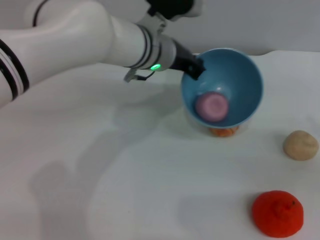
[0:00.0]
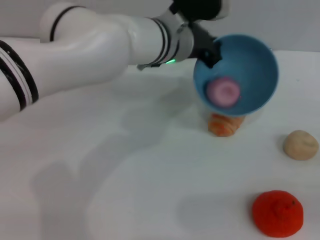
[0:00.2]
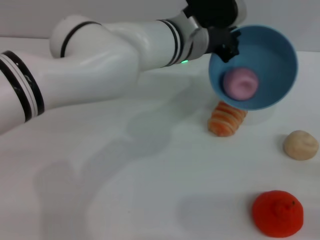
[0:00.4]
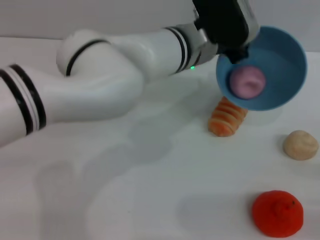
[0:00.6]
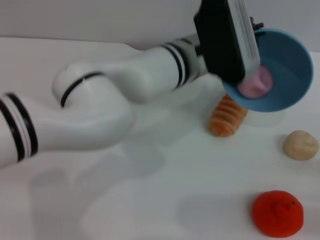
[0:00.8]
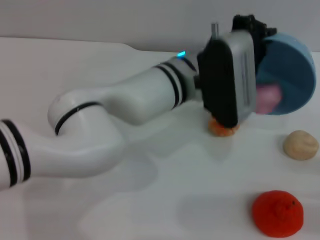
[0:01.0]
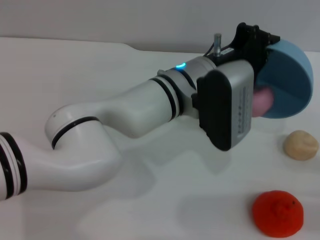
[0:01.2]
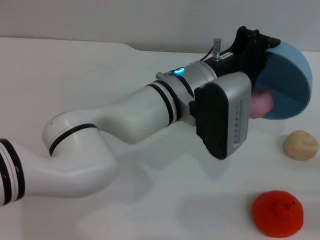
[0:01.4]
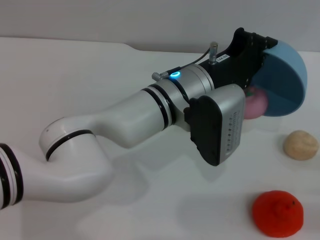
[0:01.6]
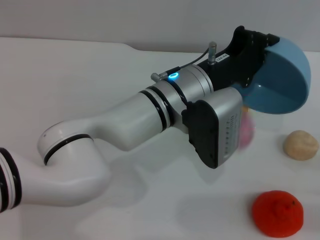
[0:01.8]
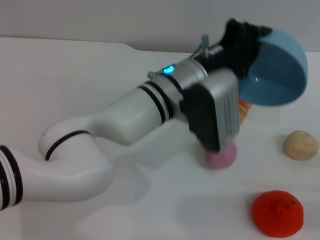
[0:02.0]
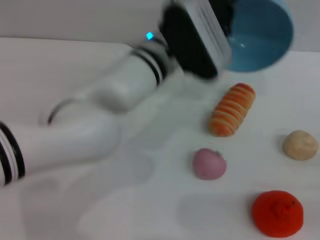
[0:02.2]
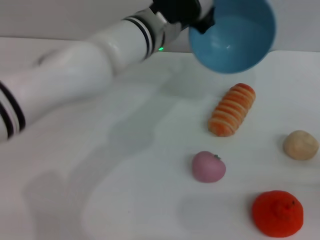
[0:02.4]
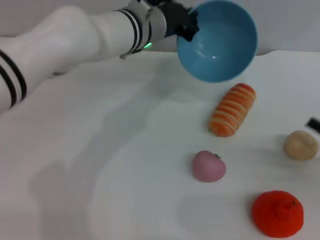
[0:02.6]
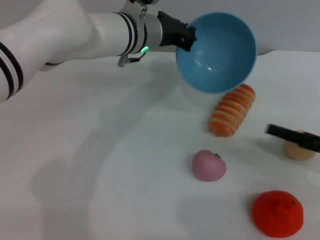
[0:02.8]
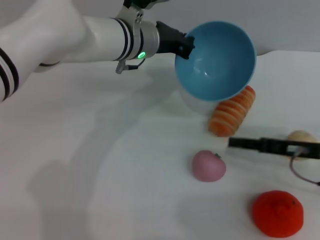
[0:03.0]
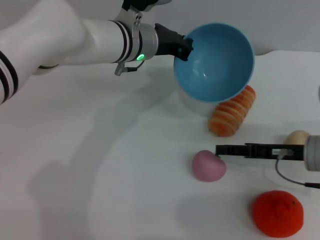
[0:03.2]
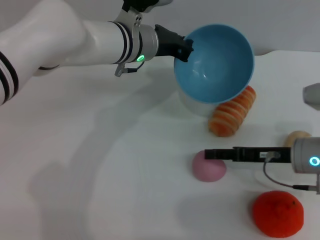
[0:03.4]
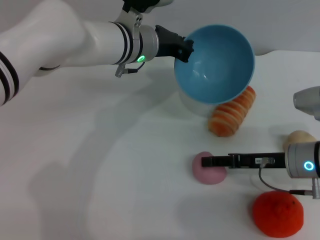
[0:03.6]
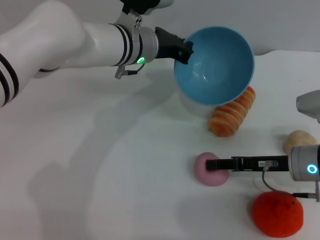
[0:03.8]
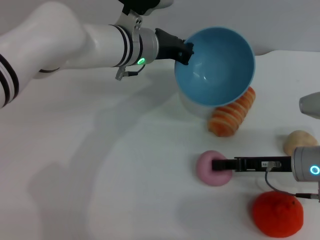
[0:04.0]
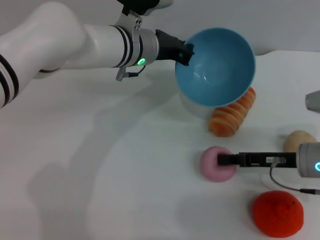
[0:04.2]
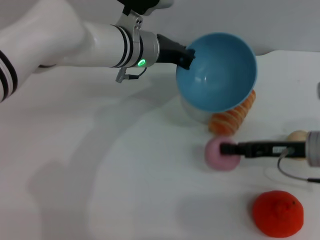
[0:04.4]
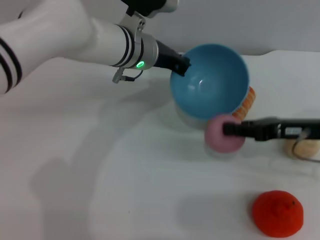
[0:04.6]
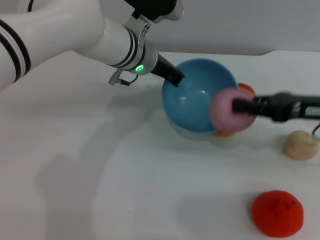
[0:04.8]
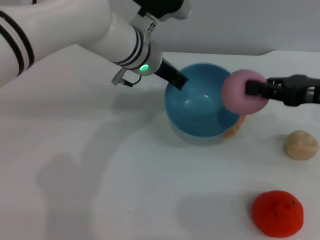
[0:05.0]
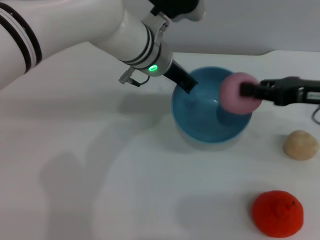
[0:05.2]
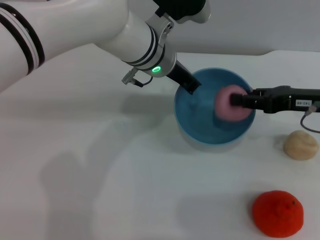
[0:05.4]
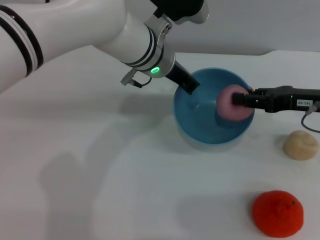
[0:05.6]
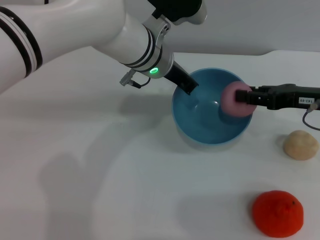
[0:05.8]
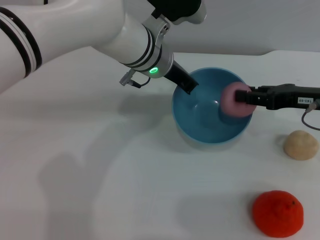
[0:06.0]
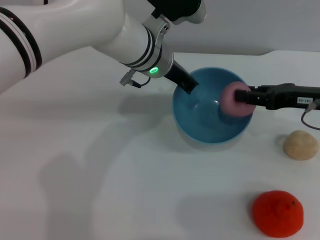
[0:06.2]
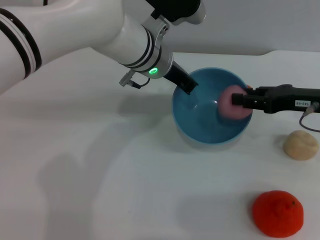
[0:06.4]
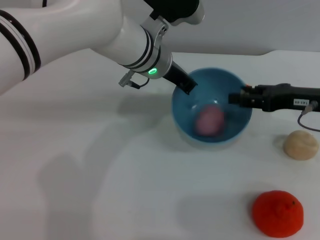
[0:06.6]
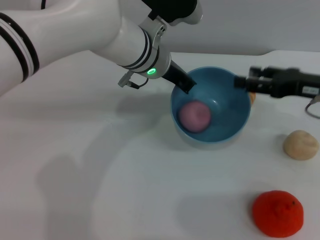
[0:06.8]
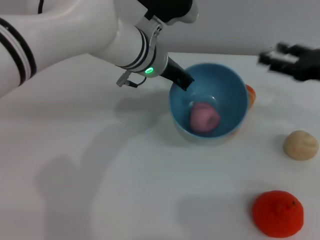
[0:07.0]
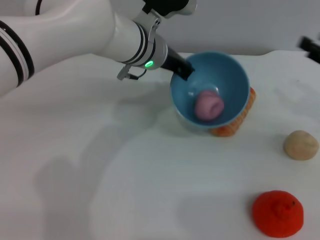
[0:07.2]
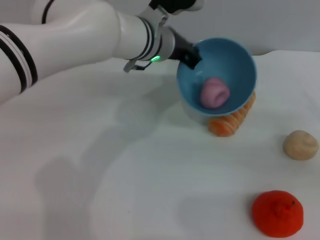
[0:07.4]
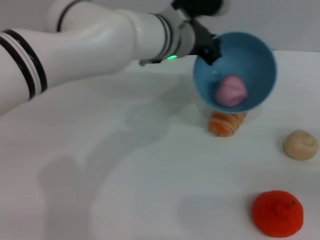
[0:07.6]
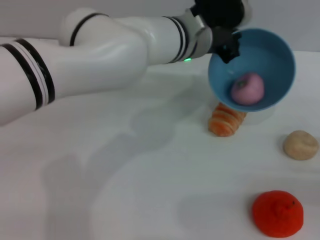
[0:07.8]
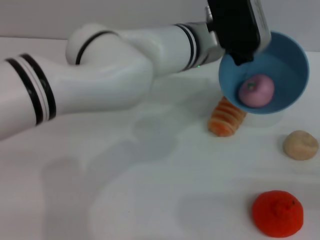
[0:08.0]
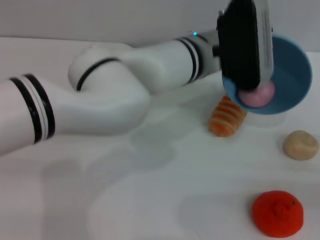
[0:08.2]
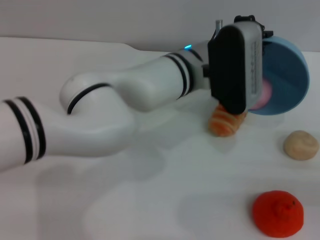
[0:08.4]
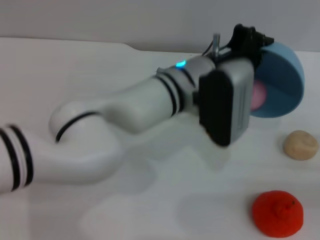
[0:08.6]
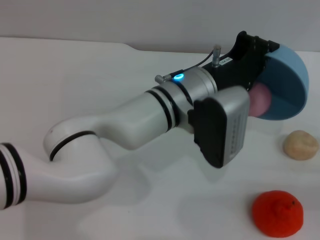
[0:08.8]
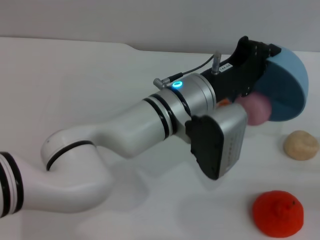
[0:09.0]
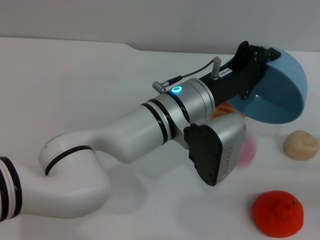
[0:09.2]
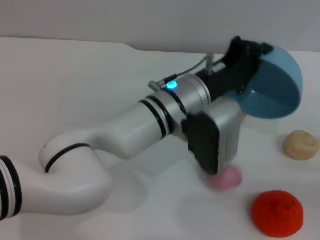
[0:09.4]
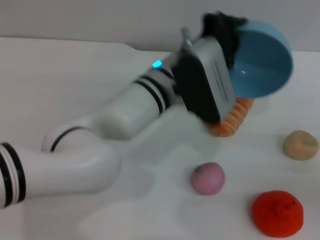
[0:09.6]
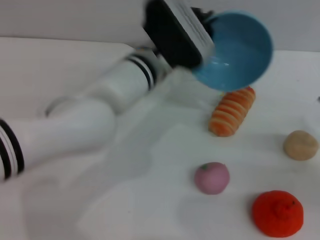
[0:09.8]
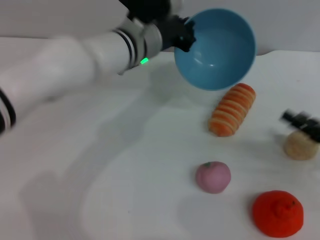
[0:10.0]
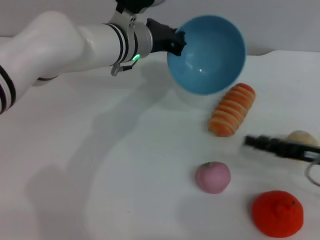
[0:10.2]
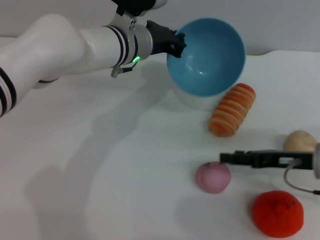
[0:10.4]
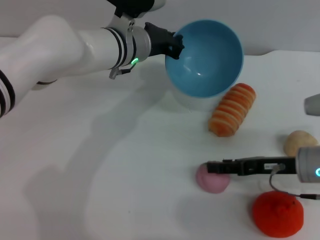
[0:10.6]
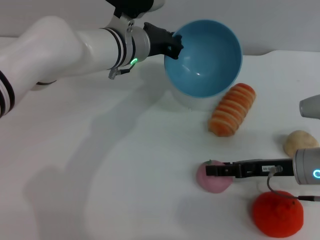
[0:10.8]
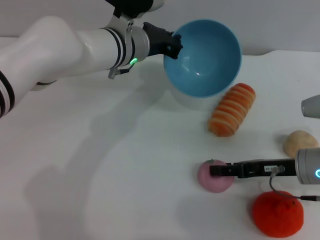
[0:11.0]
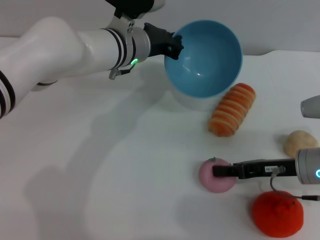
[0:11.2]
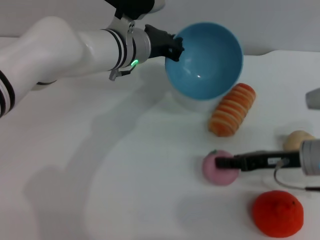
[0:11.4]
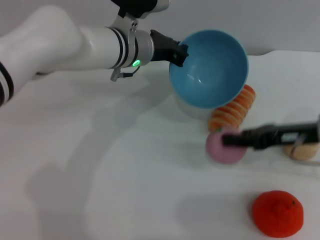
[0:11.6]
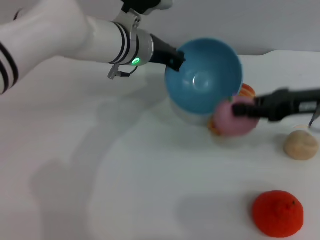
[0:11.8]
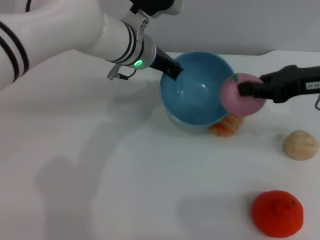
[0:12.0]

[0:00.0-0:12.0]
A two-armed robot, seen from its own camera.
Task of the whole recording: put the peach into the blue bowl and pour it out repeatedly.
Step, 0:00.0 to 0:02.2: Pour the peach out of bowl.
Step, 0:02.4 to 0:04.6: Pick up the peach with the right gripper.
Step, 0:04.8 to 0:07.0: Place the peach into the bowl.
Step, 0:07.2 to 0:09.4: Pour the peach out of bowl.
Step, 0:09.6 to 0:11.6: Pick up the peach with the right gripper.
0:00.0 to 0:01.6: The right gripper heads backward and downward, covering some 10 cm; the left gripper is displaced backward by some 10 cm.
0:01.6 to 0:03.0: The left gripper heads forward and to the left, covering some 10 cm. Meanwhile the right gripper goes about 15 cm to the left and forward.
0:03.0 to 0:04.4: The right gripper closes up.
0:04.4 to 0:06.0: The right gripper moves upward, approximately 5 cm.
0:06.0 to 0:07.6: The right gripper goes about 15 cm to the right, backward and downward, and opens.
0:07.6 to 0:09.0: The left gripper moves backward, approximately 10 cm.
0:09.0 to 0:10.4: The left gripper travels forward and to the left by about 15 cm; the right gripper is displaced to the left and forward by approximately 15 cm.
0:10.4 to 0:12.0: The right gripper moves upward and forward, roughly 15 cm, and closes.

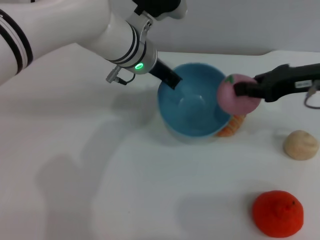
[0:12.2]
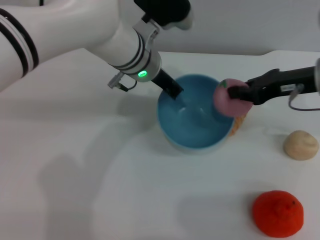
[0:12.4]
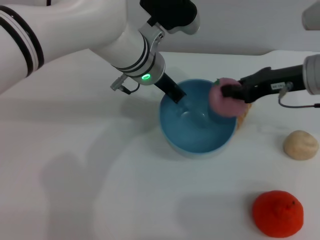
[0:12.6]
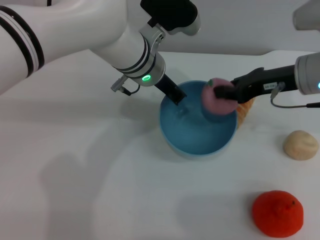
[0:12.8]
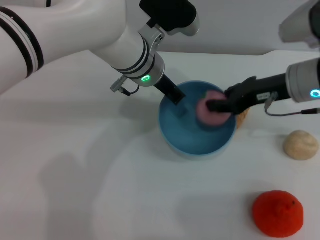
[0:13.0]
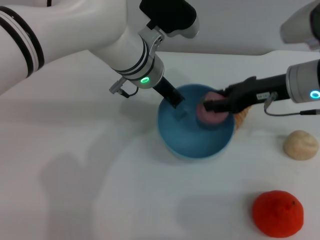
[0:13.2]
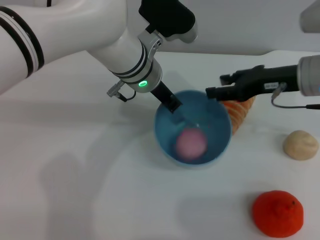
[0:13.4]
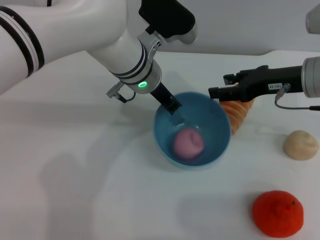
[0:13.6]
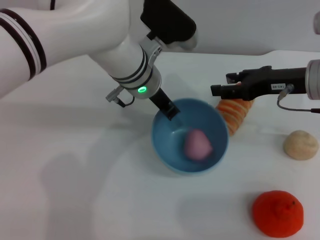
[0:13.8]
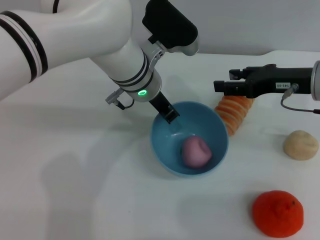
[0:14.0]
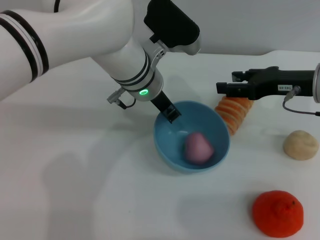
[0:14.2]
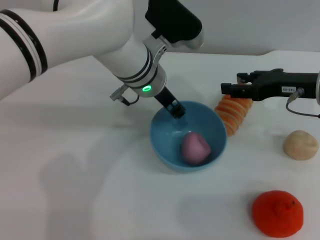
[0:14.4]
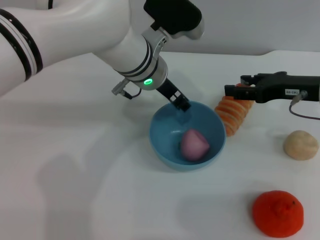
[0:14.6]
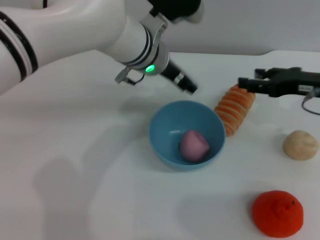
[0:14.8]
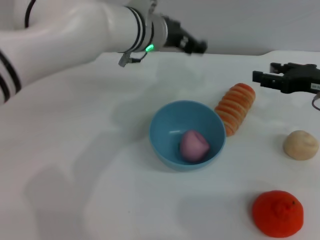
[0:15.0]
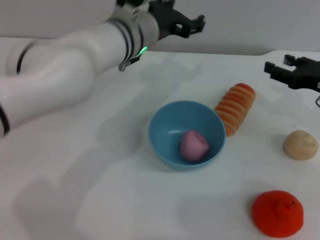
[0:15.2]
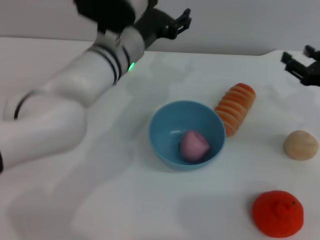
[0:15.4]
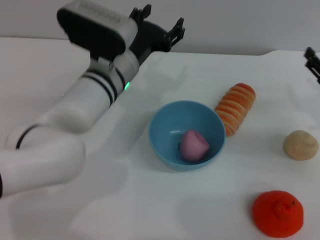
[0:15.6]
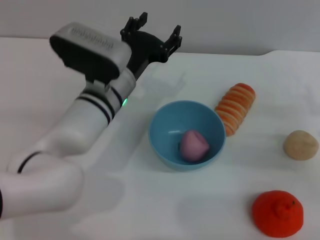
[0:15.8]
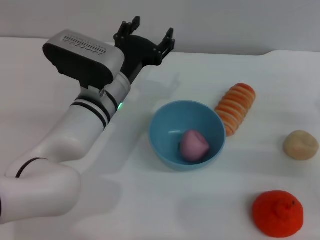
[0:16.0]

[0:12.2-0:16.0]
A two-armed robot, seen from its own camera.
Task of the whole recording: put the peach into the blue bowl and pour it out repeatedly.
Step, 0:12.2 to 0:13.4: Place the peach into the bowl.
Step, 0:13.6 to 0:14.6: Place the bowl on the table.
0:12.2 to 0:13.4: The right gripper opens up.
0:13.4 to 0:14.8: The left gripper opens up; the right gripper travels to the right by about 5 cm.
0:14.8 to 0:16.0: The right gripper heads downward, backward and to the right, covering approximately 15 cm. Meanwhile the left gripper moves downward, backward and to the left, approximately 10 cm, and opens.

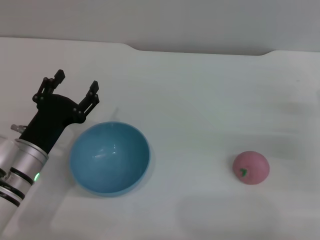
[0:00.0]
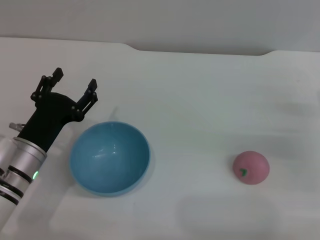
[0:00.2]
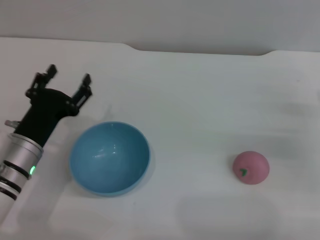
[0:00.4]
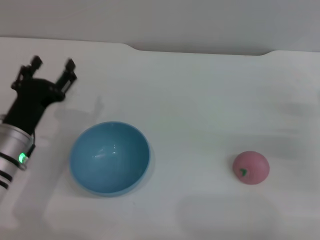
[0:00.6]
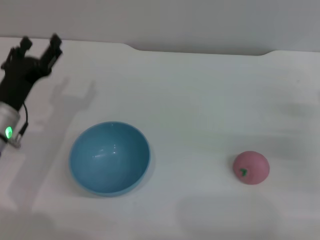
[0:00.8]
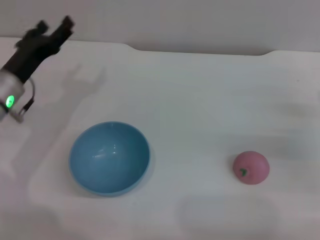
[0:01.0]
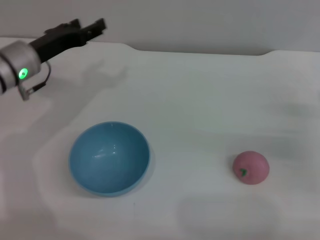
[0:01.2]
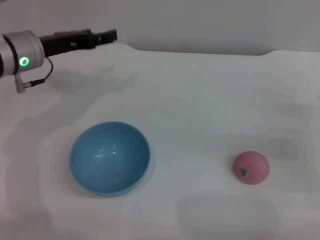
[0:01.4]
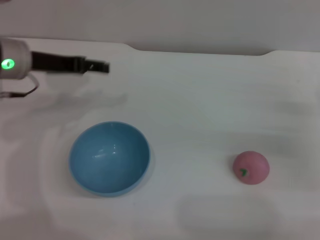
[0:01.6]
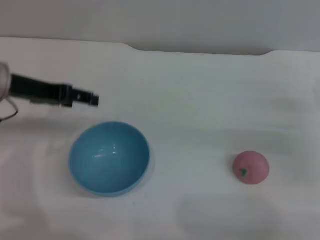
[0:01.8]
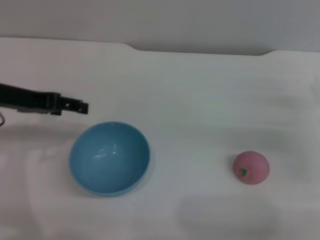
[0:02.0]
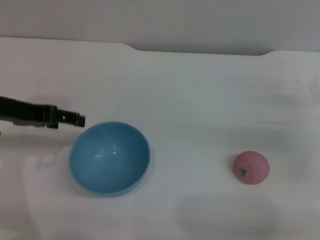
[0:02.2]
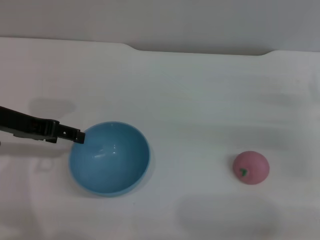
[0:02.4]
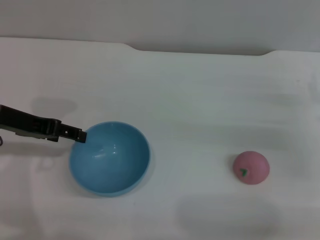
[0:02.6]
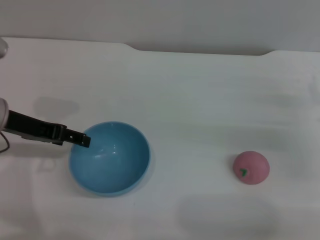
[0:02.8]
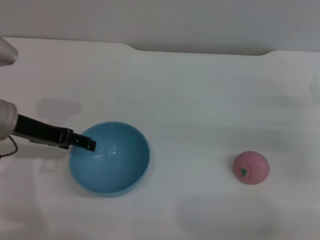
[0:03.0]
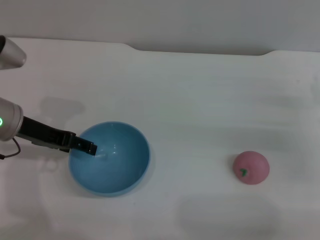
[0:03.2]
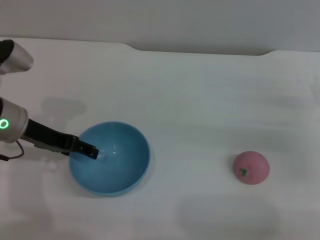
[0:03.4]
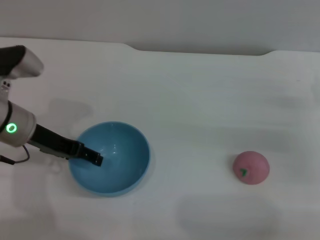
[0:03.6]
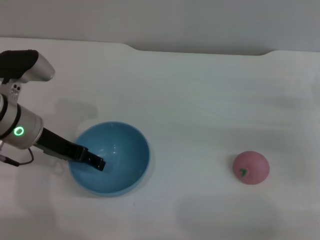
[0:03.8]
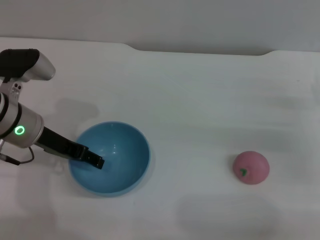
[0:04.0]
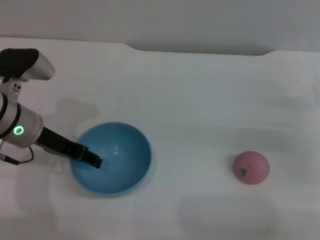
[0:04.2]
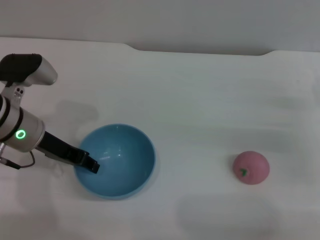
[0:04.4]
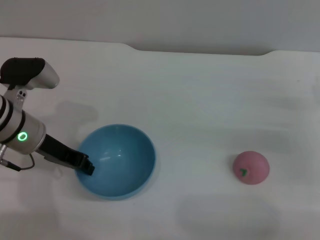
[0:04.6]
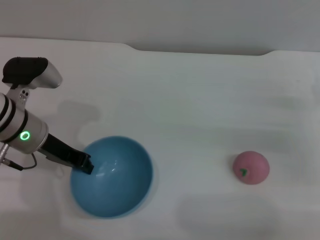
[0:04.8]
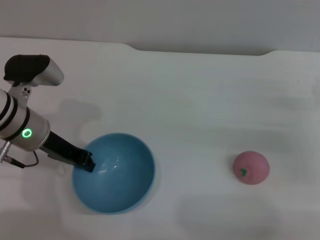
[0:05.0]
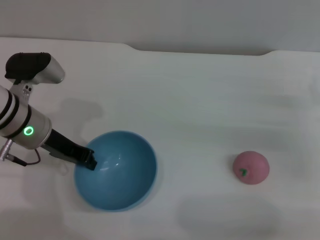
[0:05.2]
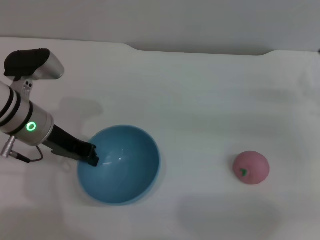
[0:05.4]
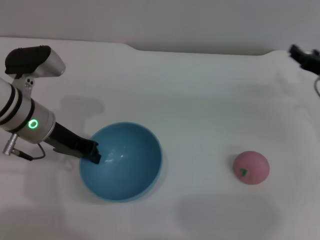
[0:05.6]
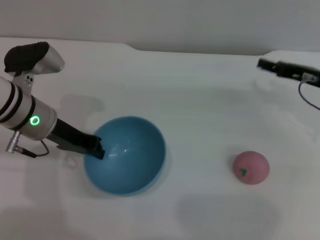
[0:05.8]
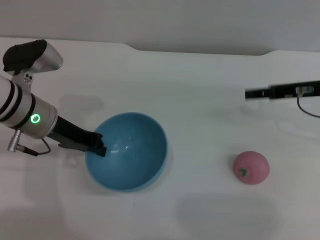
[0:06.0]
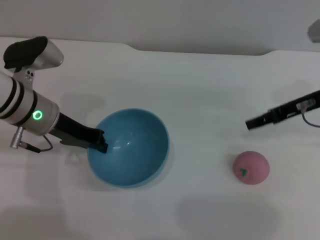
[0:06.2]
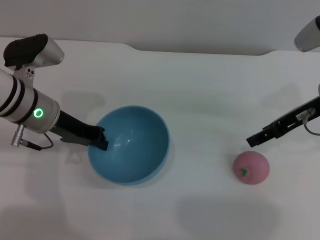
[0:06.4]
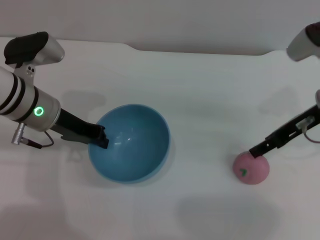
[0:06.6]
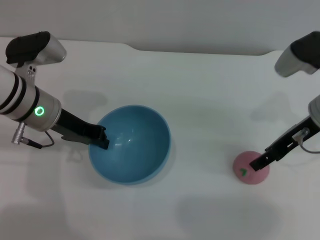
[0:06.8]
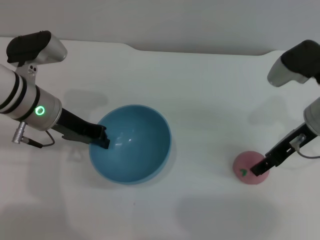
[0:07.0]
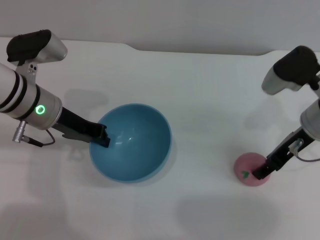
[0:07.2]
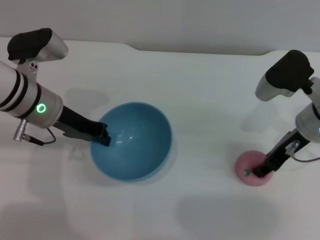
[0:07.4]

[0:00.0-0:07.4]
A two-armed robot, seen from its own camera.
Task of the whole recording: put the peach into the blue bowl and pour it out repeatedly.
Step, 0:00.0 to 0:05.2: Pick up the bowl with the left gripper.
0:00.0 to 0:01.4: The left gripper travels forward and upward by some 20 cm.
0:01.4 to 0:03.0: The left gripper moves backward, some 5 cm.
0:03.0 to 0:04.4: The left gripper closes its fingers.
0:04.4 to 0:06.0: The right gripper shifts some 10 cm upward, forward and to the left; the left gripper closes its fingers.
0:06.0 to 0:07.4: The right gripper goes about 5 cm to the left.
